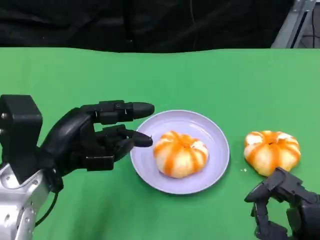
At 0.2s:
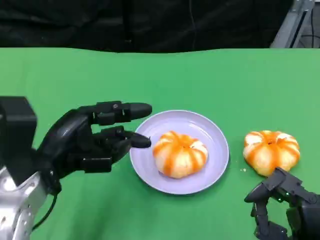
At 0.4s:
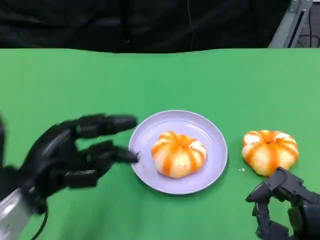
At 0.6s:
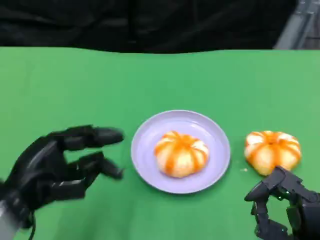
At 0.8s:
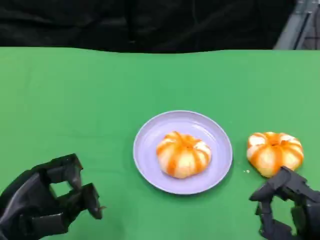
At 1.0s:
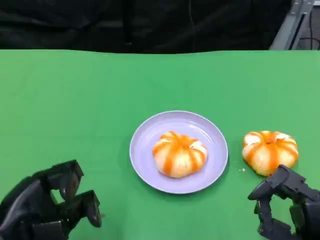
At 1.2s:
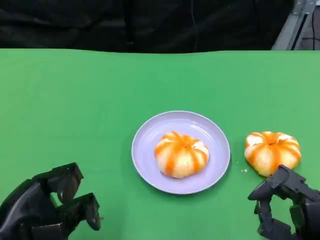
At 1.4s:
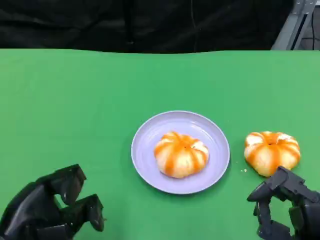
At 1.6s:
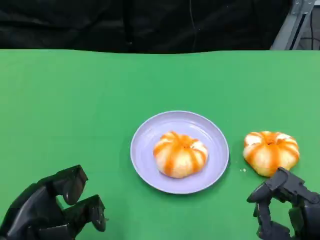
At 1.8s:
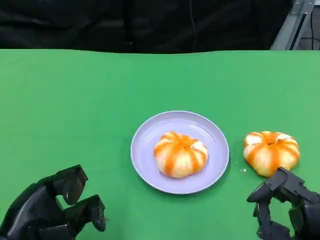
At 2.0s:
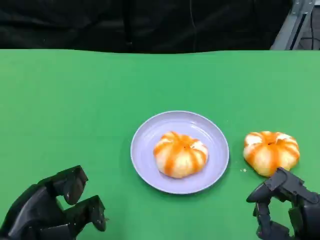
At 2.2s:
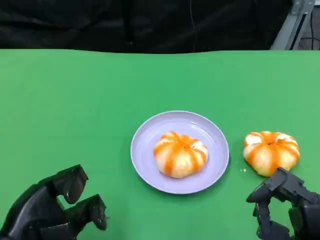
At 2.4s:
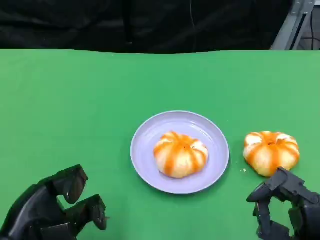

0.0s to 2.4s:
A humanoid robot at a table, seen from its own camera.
Task of the whole recording: Grasp the bread from the table and place it into the plate.
0.0s to 1.2s: The left hand shifts about 10 cm backward and to the left.
1.2s to 2.4s: The two hands keep their place.

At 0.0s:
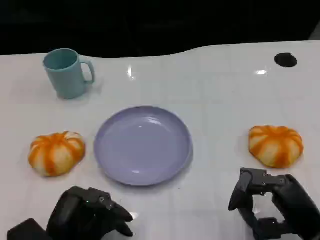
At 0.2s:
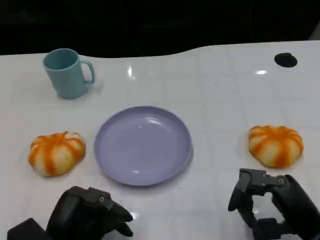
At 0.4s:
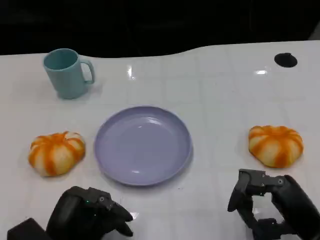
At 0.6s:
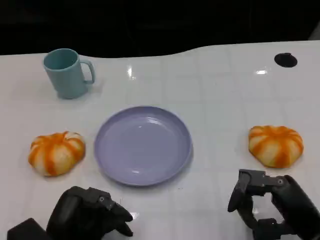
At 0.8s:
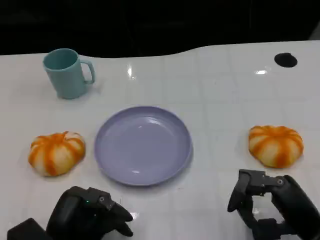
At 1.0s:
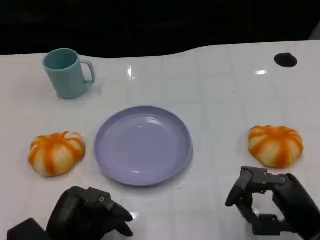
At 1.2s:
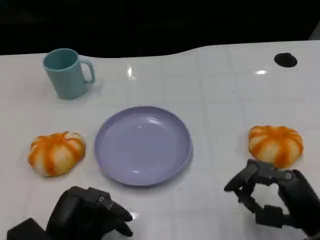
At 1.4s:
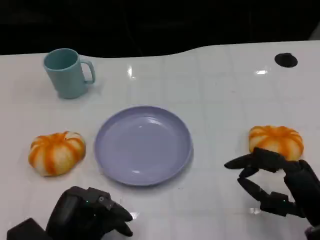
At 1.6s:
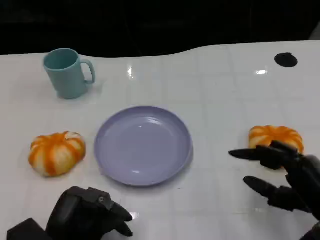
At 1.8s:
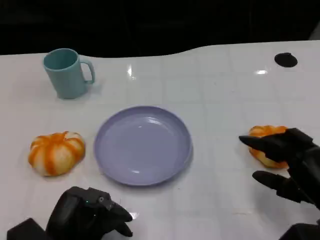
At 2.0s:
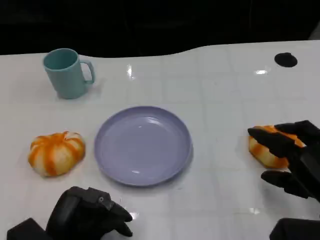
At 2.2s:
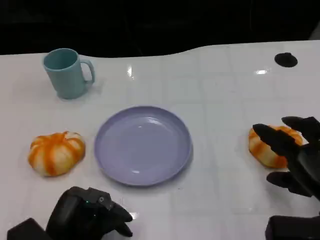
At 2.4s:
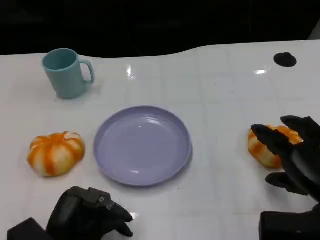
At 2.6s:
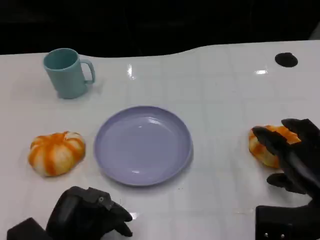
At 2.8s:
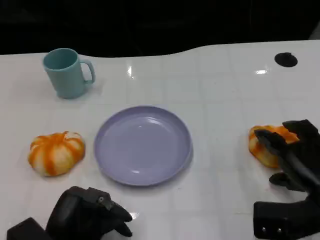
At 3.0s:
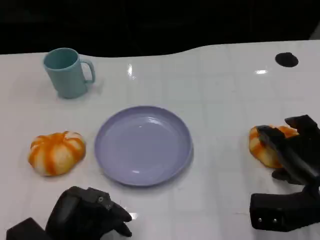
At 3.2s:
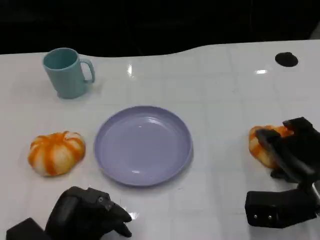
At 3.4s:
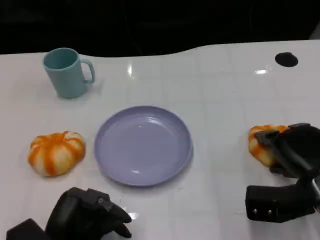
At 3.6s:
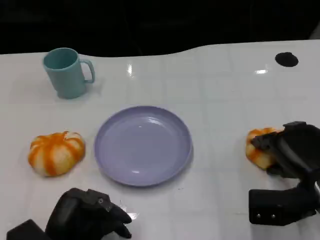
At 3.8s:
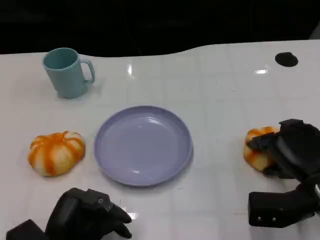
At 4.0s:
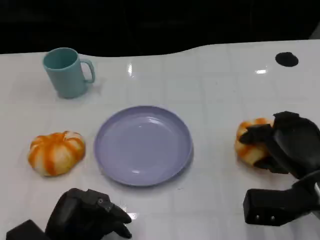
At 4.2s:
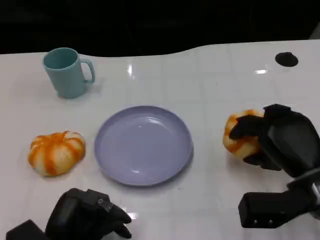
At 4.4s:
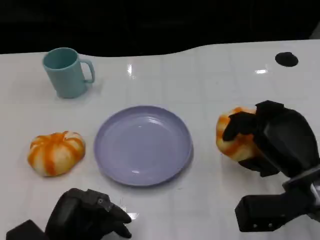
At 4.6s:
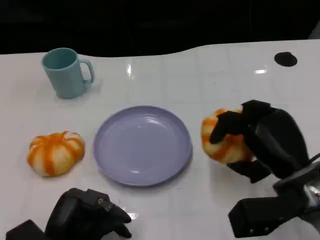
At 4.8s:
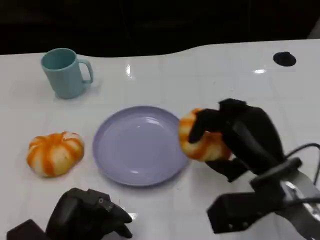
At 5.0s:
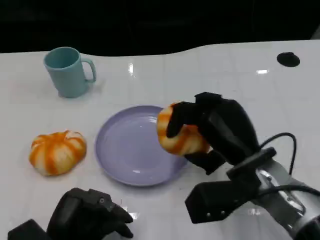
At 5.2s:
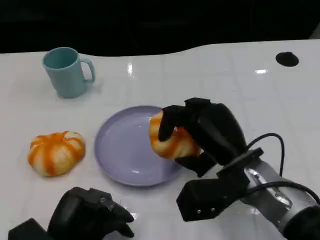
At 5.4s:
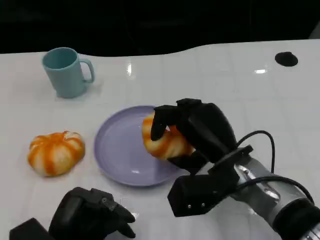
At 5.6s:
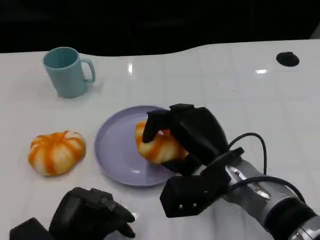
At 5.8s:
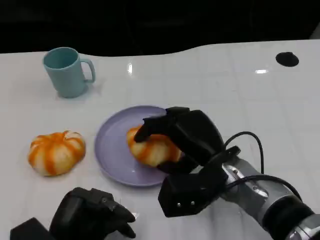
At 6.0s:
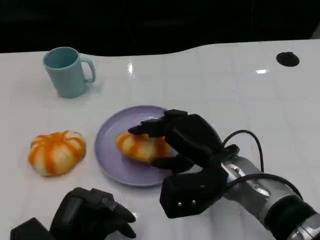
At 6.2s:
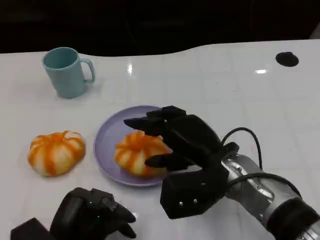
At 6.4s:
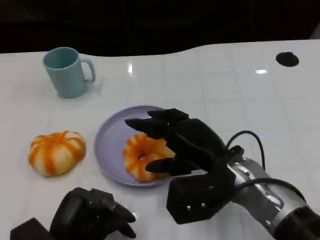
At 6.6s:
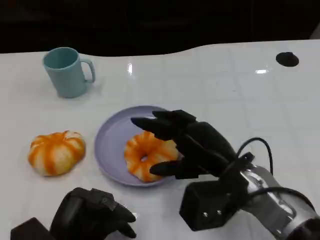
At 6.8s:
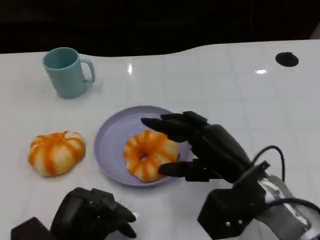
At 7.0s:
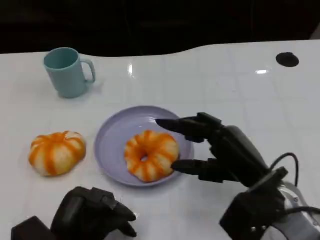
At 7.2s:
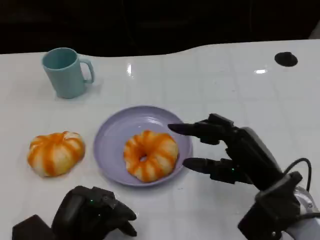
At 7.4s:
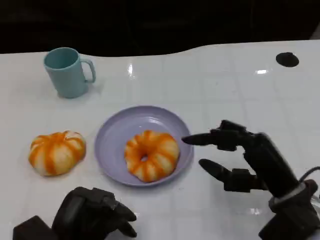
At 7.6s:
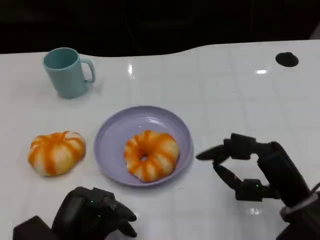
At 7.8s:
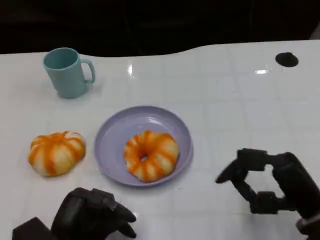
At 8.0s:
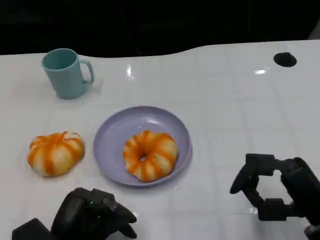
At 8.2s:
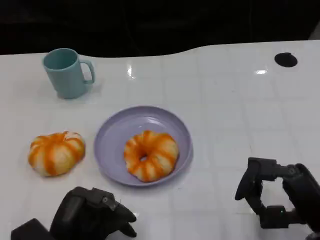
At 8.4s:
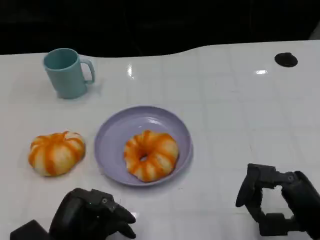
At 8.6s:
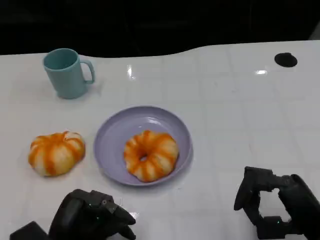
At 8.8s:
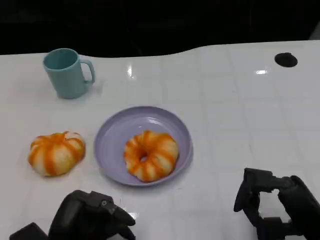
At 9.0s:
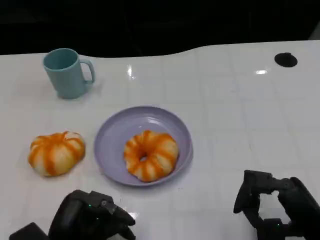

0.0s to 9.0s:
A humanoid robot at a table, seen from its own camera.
Task of the whole recording: Grasp the bread from the table and place it into the plate.
1.6s to 3.0s: The right hand heads forward, covering approximately 5 cm.
4.4s to 6.0s: The right hand goes approximately 10 cm to the left.
6.0s to 7.6s: The right hand is displaced to the right and backward by approximately 15 cm.
7.6s to 9.0s: The right hand moves roughly 5 cm.

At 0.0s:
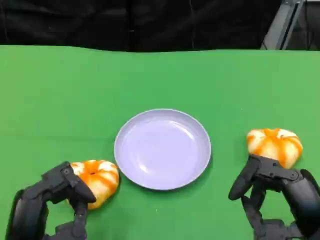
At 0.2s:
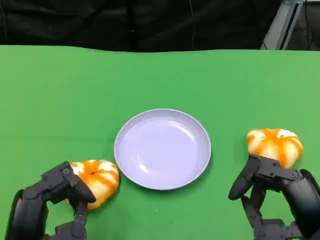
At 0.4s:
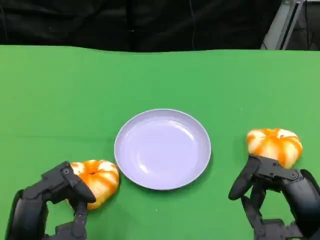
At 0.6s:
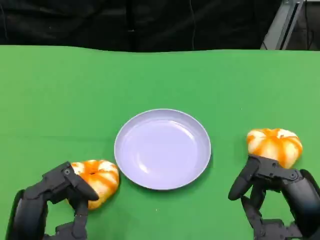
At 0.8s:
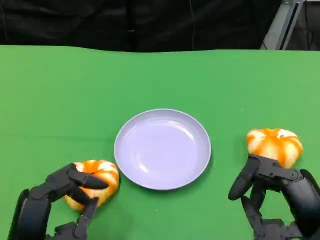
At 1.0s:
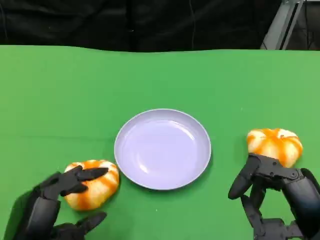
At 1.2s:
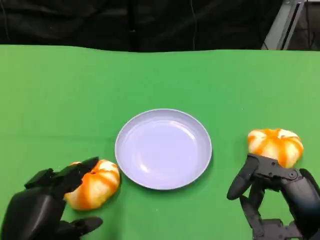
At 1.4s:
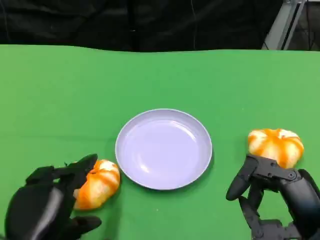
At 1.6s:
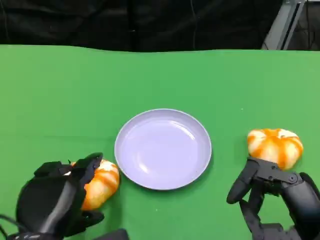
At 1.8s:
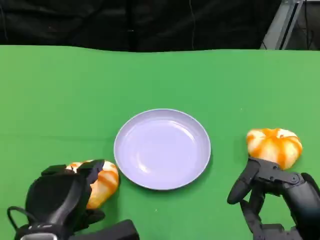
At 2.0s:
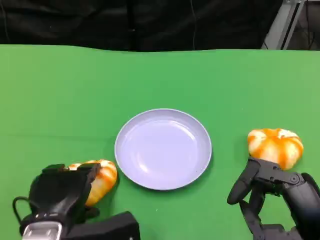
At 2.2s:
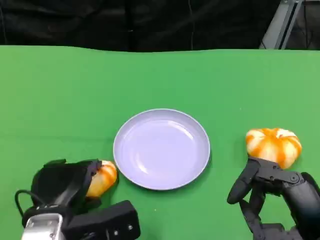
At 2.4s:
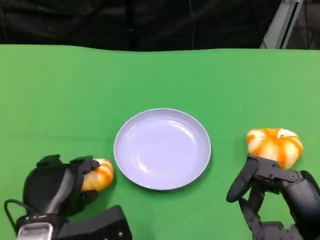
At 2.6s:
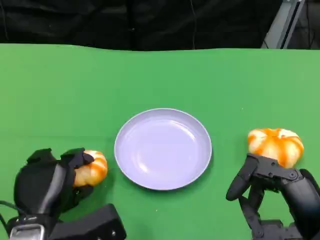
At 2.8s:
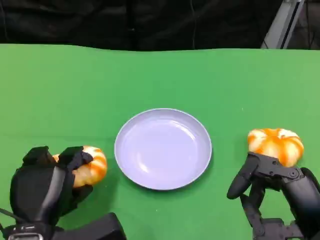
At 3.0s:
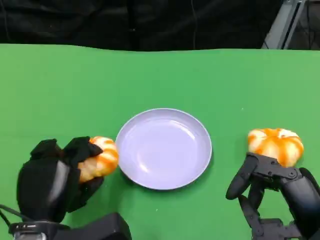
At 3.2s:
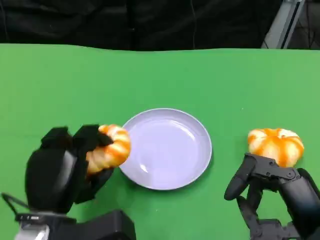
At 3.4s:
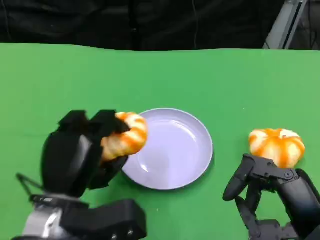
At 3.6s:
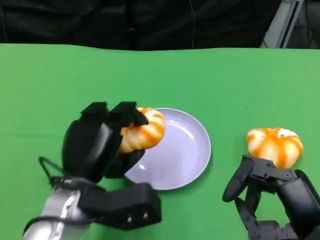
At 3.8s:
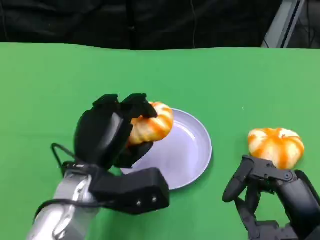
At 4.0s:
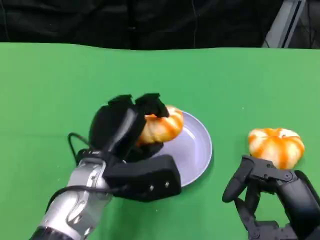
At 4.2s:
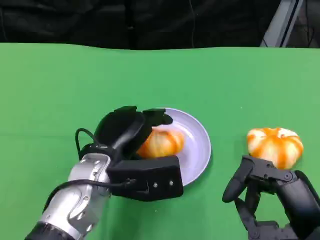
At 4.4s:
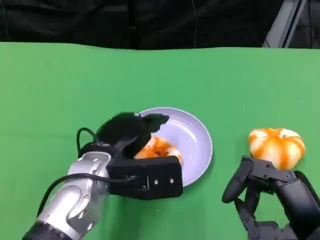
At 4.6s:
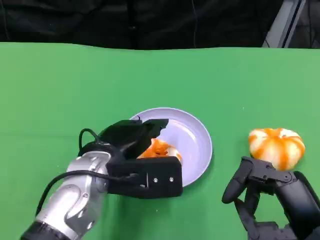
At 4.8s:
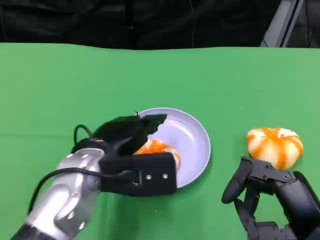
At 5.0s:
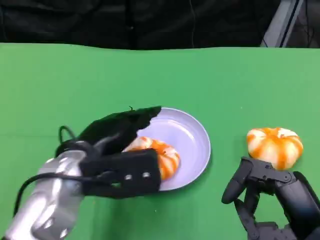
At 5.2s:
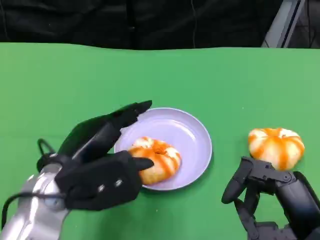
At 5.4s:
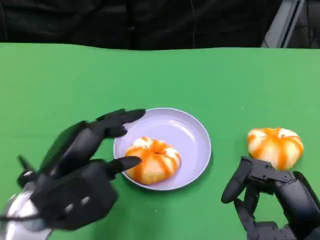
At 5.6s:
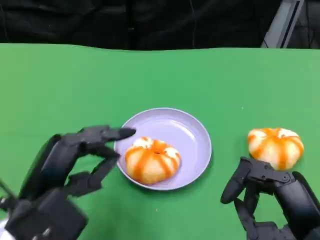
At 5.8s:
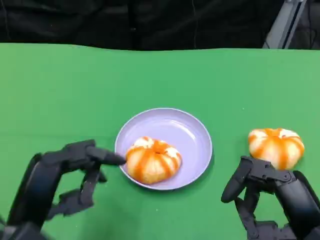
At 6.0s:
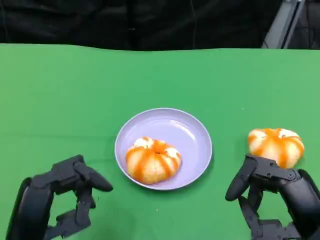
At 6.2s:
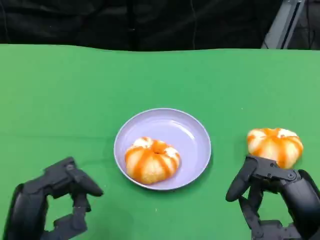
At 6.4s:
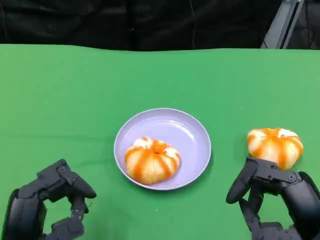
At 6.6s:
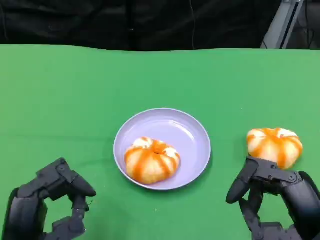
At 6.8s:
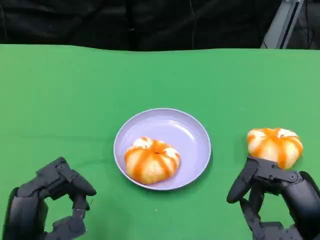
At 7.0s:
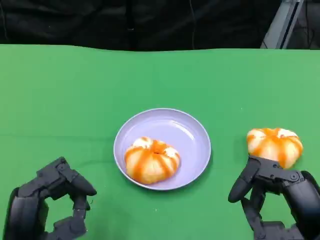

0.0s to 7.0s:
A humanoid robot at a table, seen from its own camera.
Task of the whole recording: Grasp the bread from the table and place it into the plate.
2.8s to 4.2s: The left hand shifts about 10 cm to the right and forward.
4.2s to 5.6s: The left hand goes roughly 15 cm to the left and backward.
5.6s to 7.0s: The left hand ends up some 5 cm from where it was.

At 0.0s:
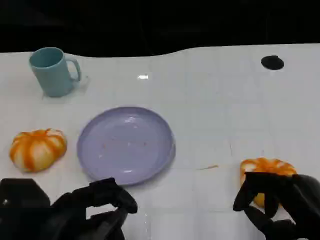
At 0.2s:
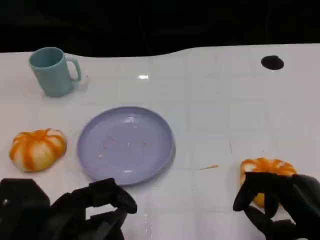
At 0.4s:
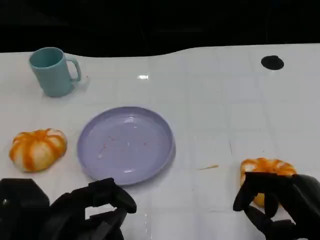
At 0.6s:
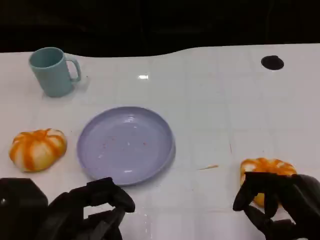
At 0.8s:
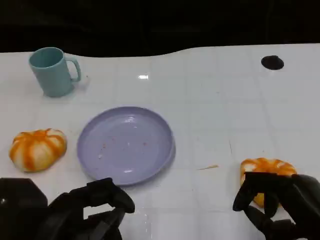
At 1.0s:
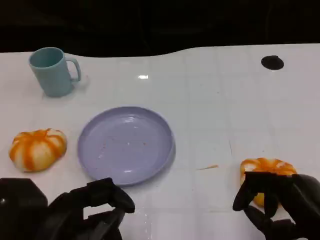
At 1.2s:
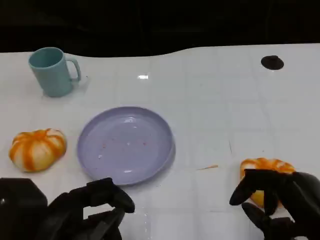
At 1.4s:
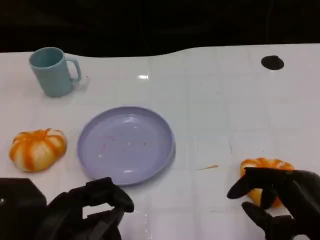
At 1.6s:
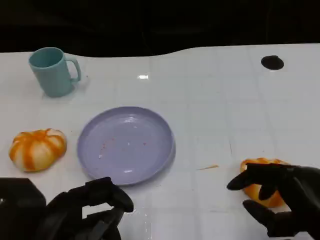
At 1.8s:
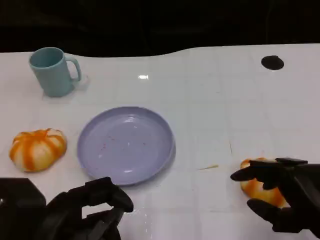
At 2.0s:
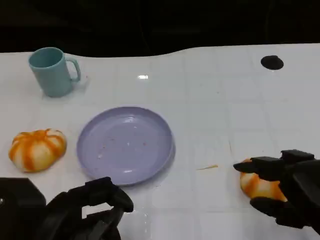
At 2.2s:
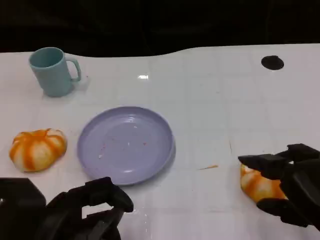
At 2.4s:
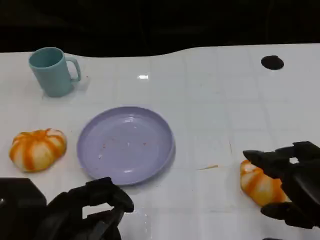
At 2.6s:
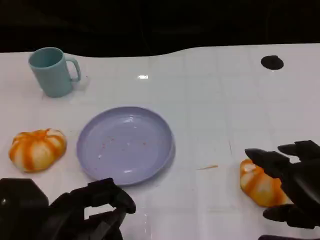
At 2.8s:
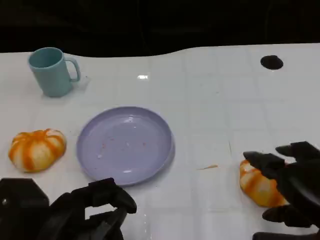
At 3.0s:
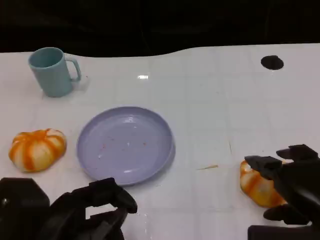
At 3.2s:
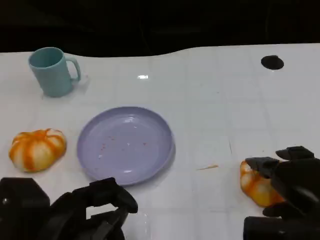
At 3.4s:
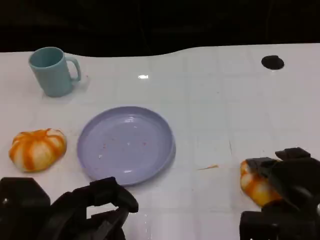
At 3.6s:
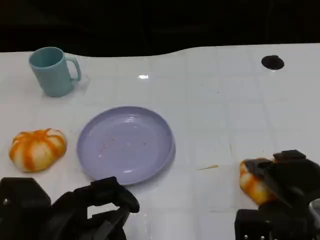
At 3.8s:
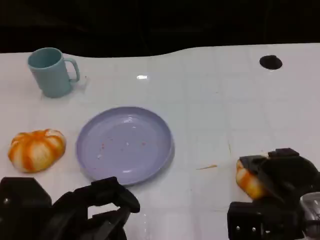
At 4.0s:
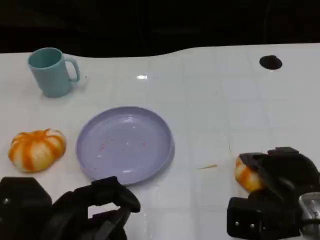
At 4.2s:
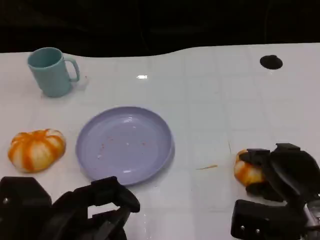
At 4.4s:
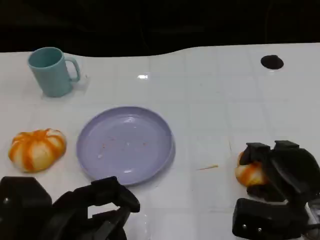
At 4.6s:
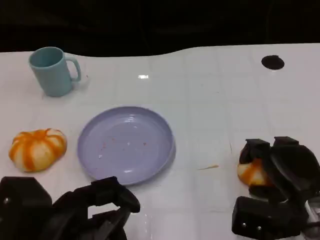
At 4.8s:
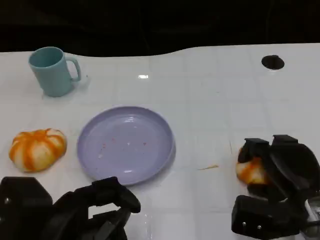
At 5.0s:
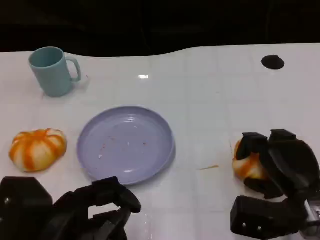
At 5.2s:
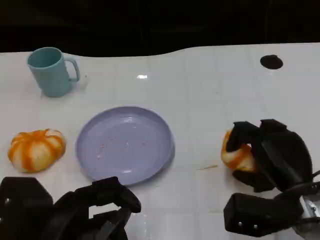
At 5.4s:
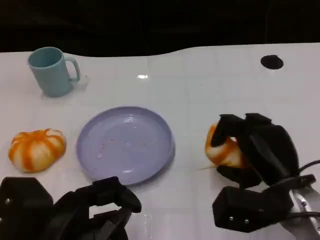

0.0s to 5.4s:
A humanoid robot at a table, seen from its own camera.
Task of the whole recording: Grasp the bread from the table and place it into the plate.
0.0s to 1.4s: Both hands stay about where they are.
2.8s to 4.0s: The right hand moves downward and forward, about 10 cm.
